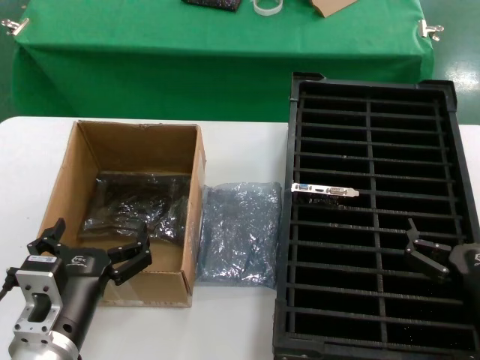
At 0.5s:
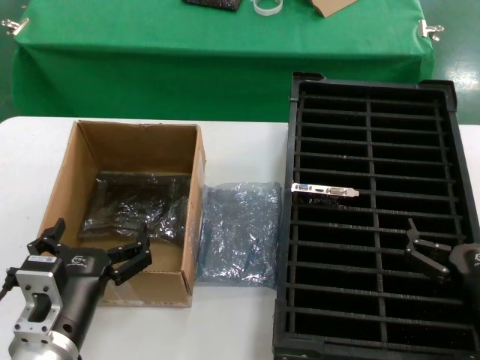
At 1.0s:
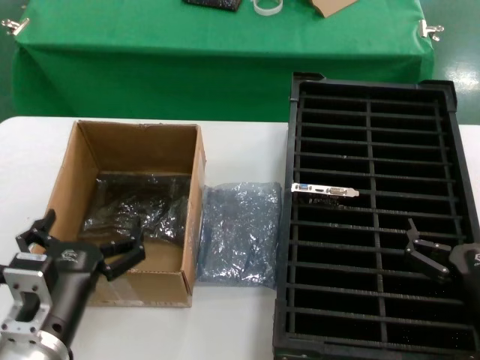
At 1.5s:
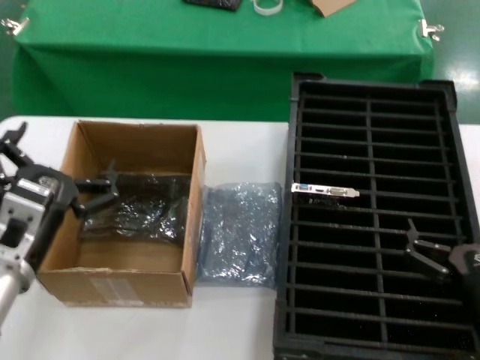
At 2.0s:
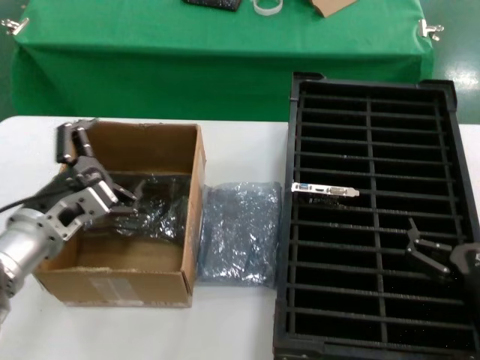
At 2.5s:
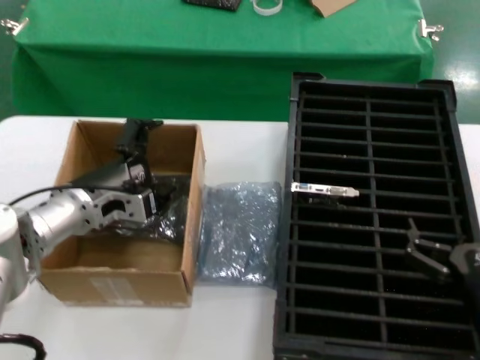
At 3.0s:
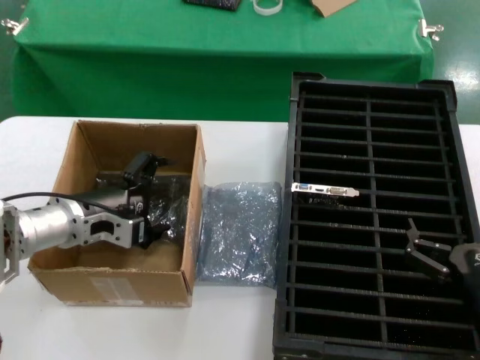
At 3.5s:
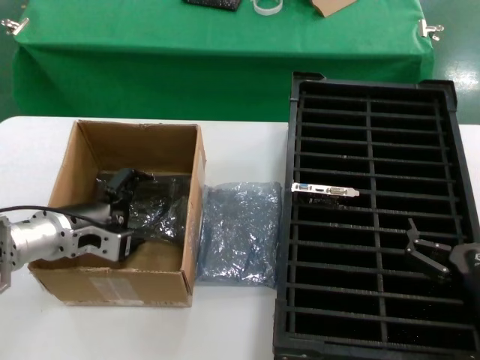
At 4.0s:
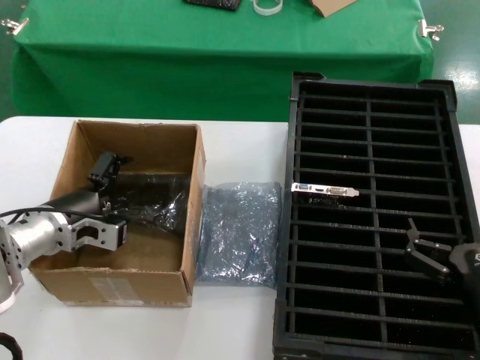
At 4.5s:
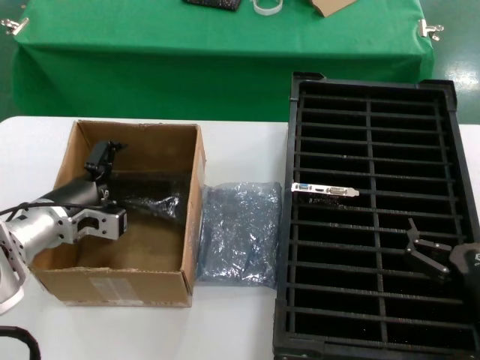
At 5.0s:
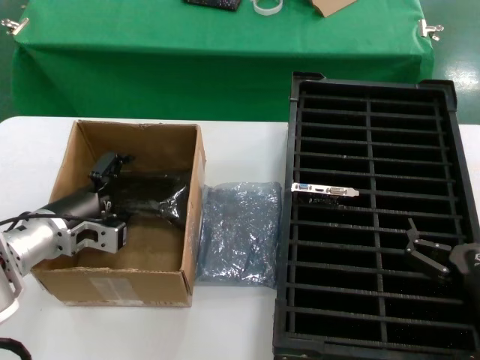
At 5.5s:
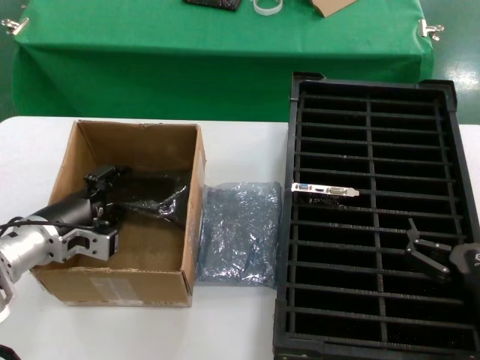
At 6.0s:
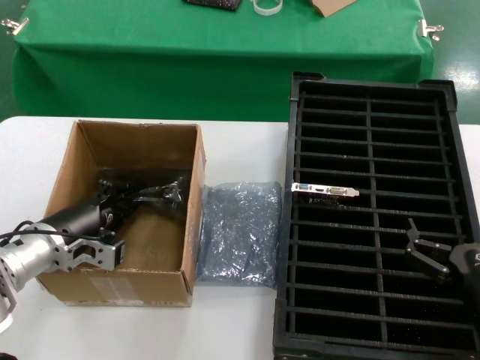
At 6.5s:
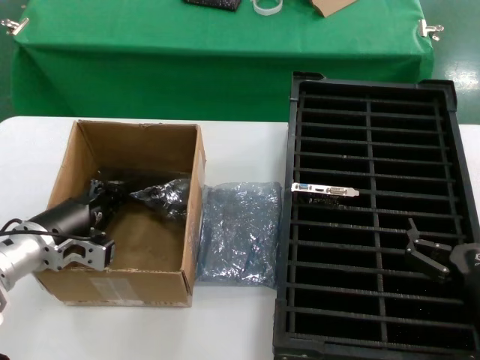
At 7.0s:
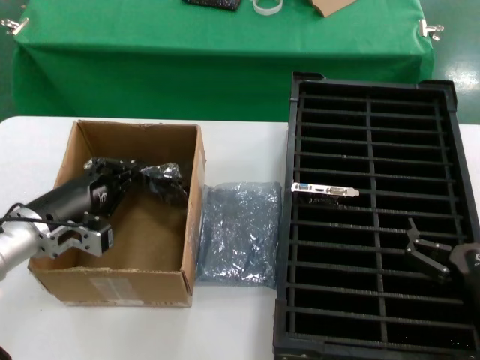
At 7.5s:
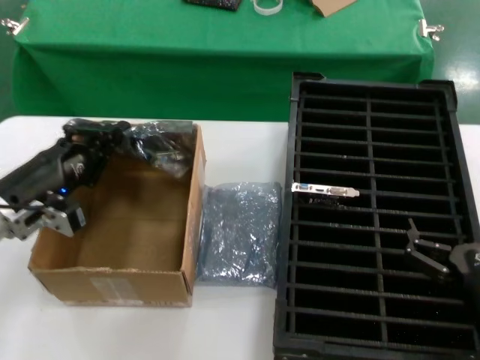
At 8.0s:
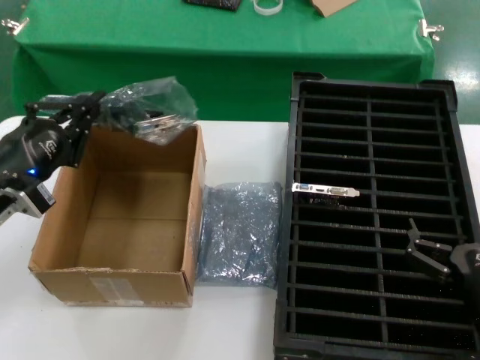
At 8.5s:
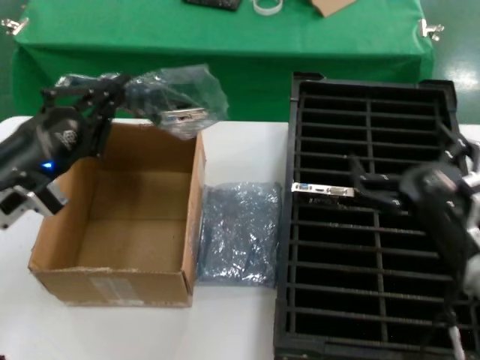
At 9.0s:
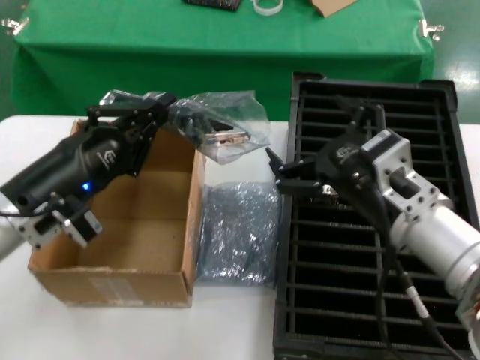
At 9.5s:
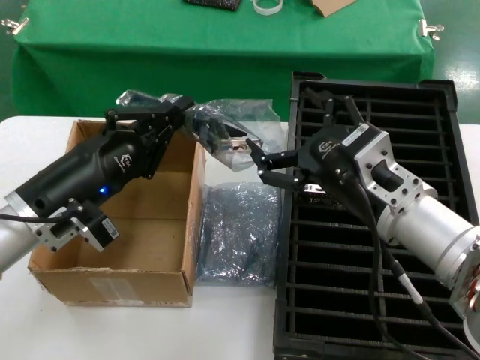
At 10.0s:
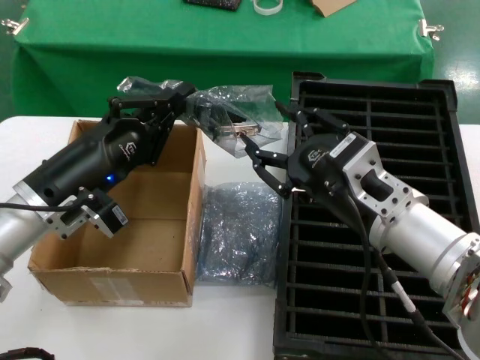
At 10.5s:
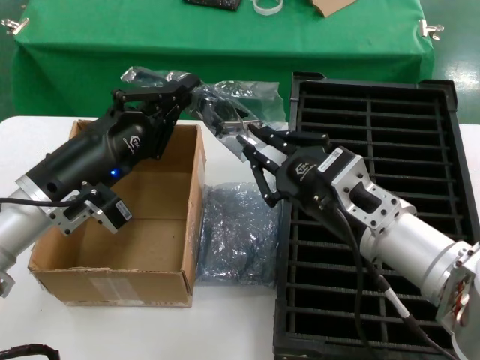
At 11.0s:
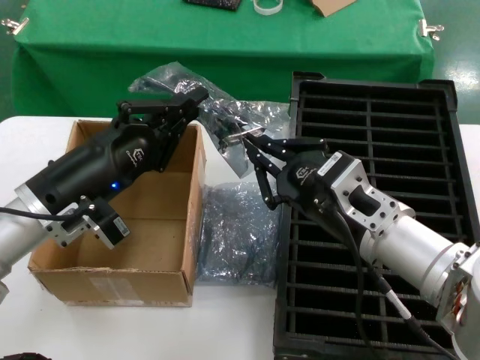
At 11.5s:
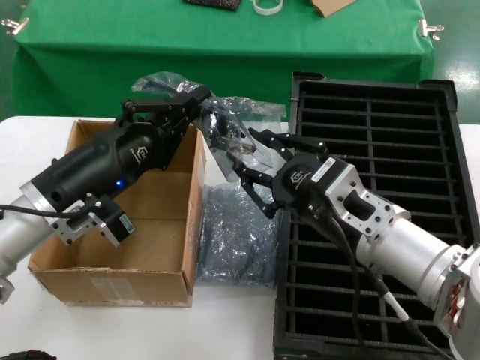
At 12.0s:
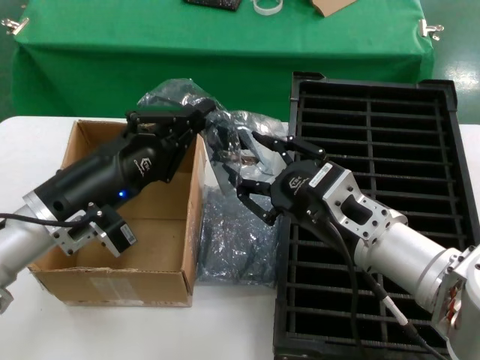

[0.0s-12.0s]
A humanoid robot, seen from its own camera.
Task of the whole recording: take out graphics card from box remove packaging put into black container.
Step, 0.0s to 6.0s: Grasp the bag.
Step, 6.5s to 8.0s: Lift the bag.
0.0s to 2.0s: The left hand moves forward, to the left and upward, about 15 cm.
2.0s to 4.0s: The left hand moves forward, some 5 cm.
4.0s to 6.0s: The hands stay close to where they were, moving slightly.
6.0s to 8.0s: The left hand travels upward by roughly 10 cm.
8.0s to 10.0s: The left hand is displaced to the right by approximately 10 cm, while the right hand is displaced upward, to the left and forward by approximately 20 cm.

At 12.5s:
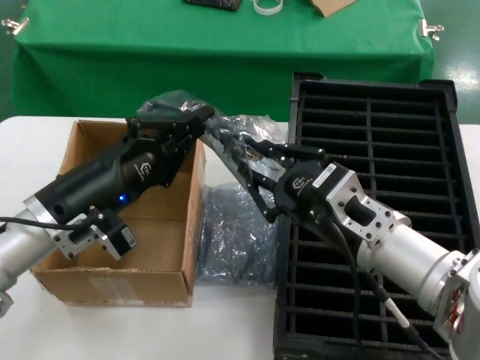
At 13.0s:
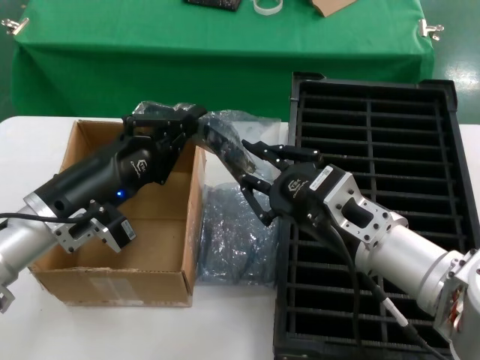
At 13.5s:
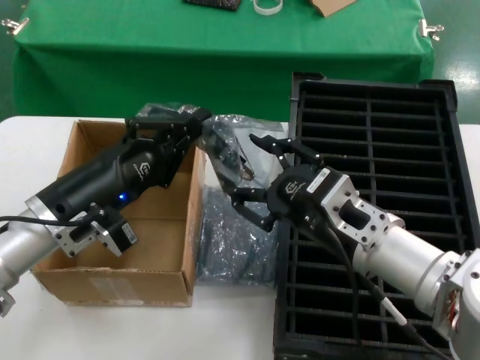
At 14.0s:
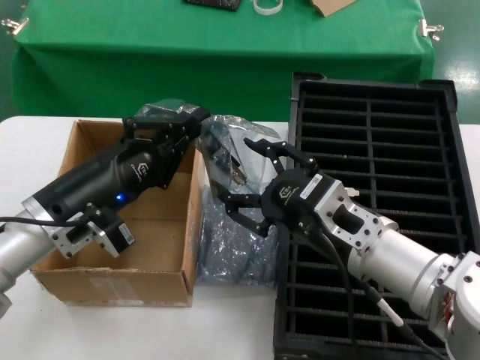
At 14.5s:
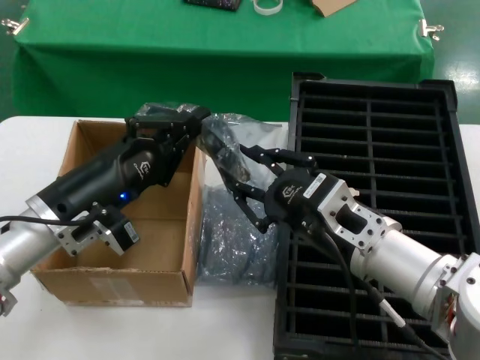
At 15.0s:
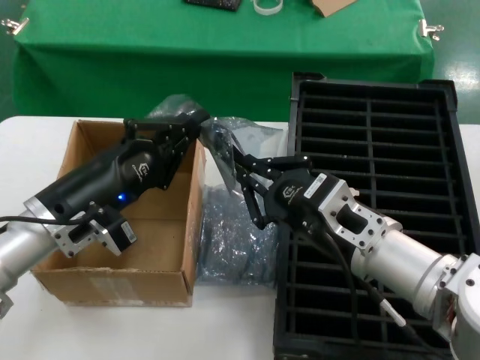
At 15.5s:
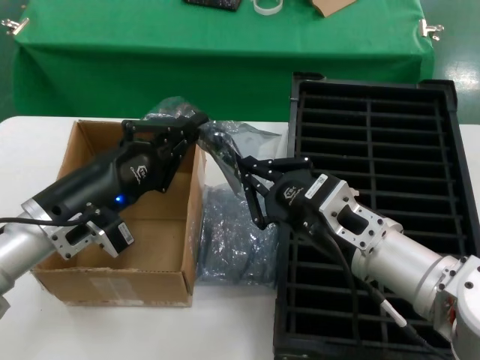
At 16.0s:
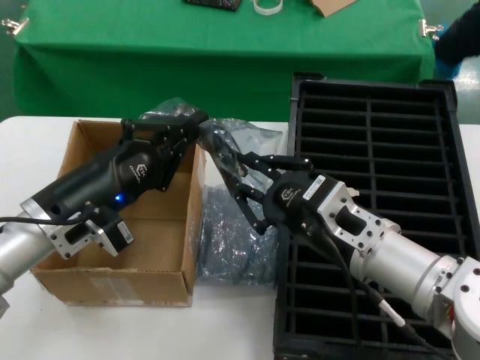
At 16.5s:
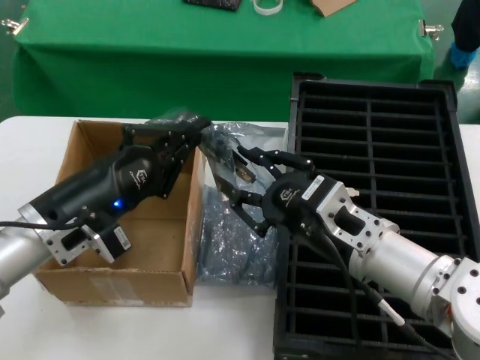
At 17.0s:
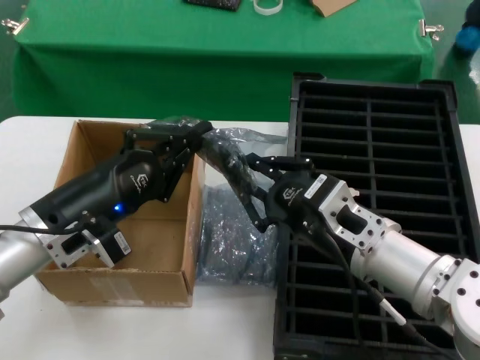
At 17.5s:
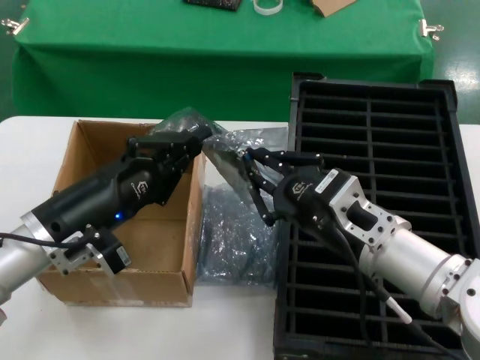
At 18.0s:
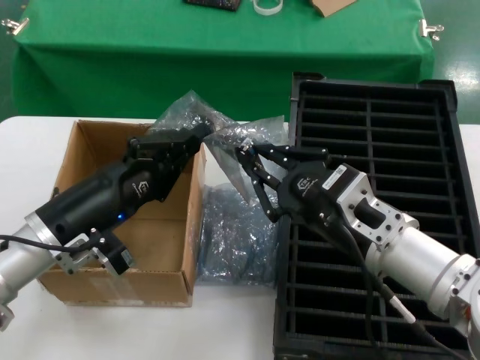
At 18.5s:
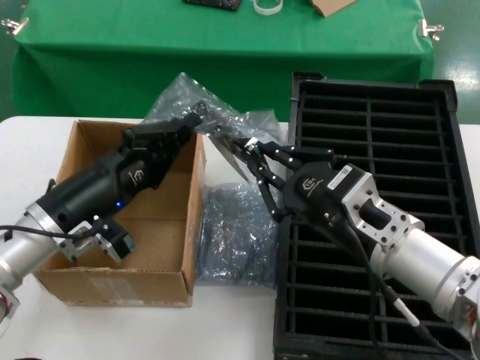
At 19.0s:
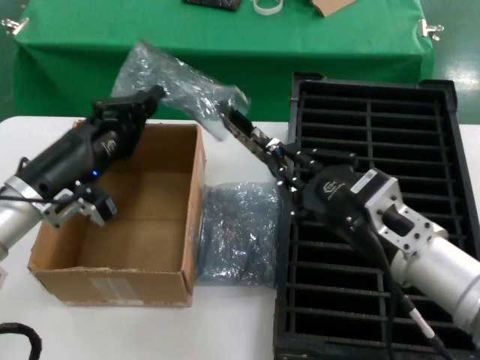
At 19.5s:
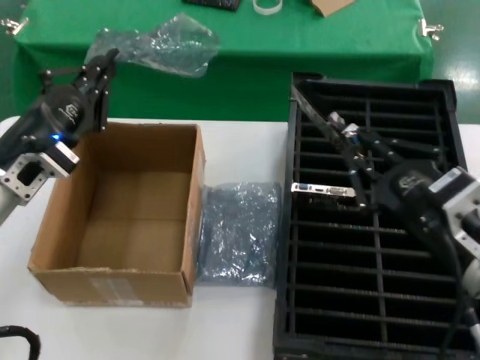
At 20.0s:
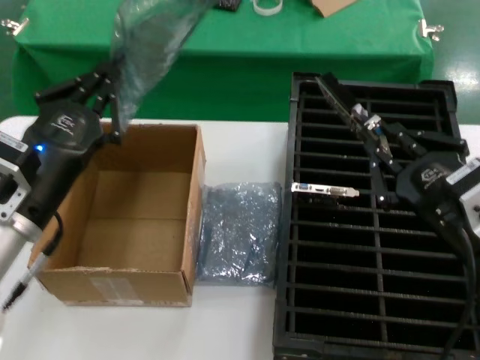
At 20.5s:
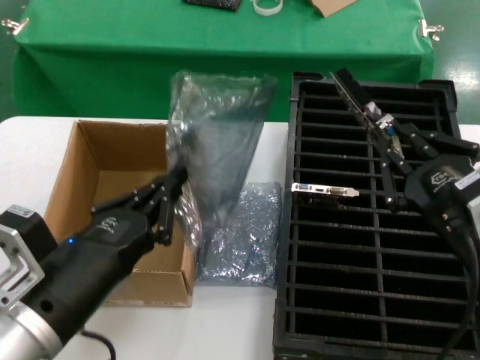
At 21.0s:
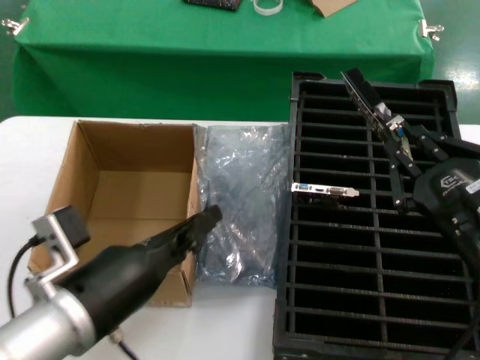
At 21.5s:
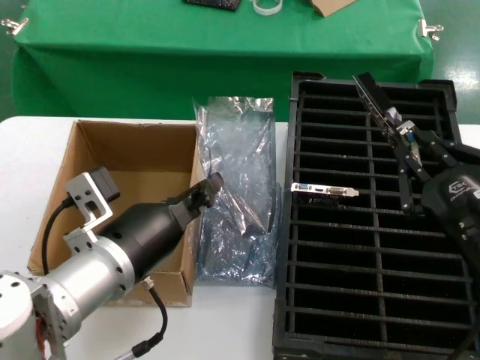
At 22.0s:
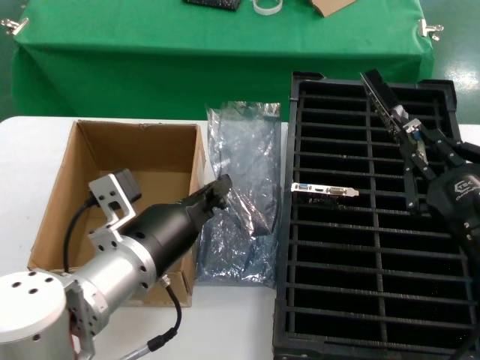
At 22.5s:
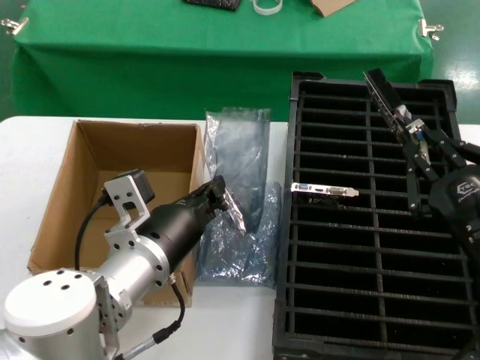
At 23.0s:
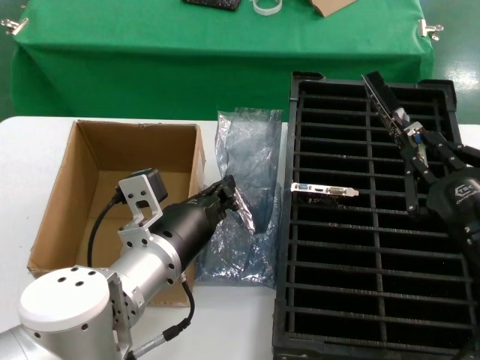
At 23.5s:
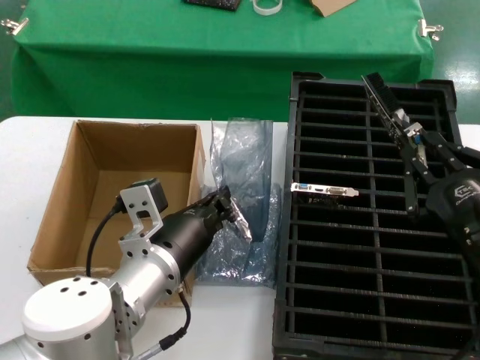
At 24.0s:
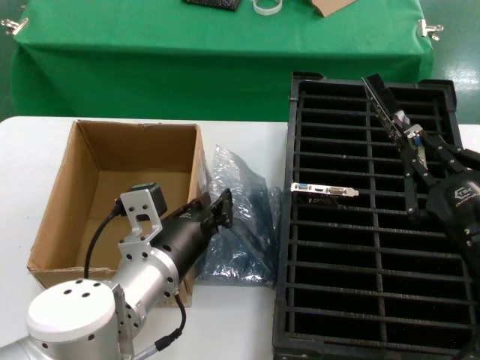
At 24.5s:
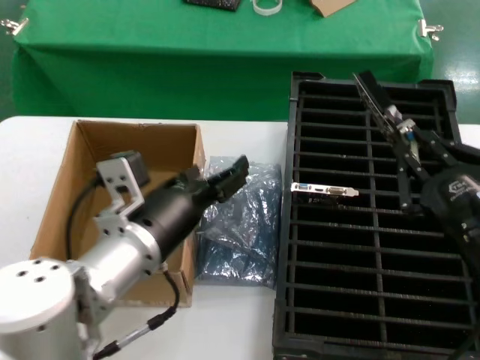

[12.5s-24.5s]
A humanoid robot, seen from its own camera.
Task of the whole recording: take out graphics card from box remove packaging put into black container.
Step, 12.5s to 19.0s: Take out the hard disk of the bag.
12.5s to 14.5s: Both hands stay about where they are.
14.5s to 16.5s: The hands move only a little.
16.5s to 18.5s: The left hand moves roughly 5 cm.
18.5s to 20.5s: The left hand travels backward and to the right by roughly 20 cm, while the right hand travels backward and to the right by roughly 10 cm.
20.5s to 22.5s: The left hand shifts roughly 15 cm forward and to the right.
22.5s to 24.5s: There are only small adjustments of the hands.

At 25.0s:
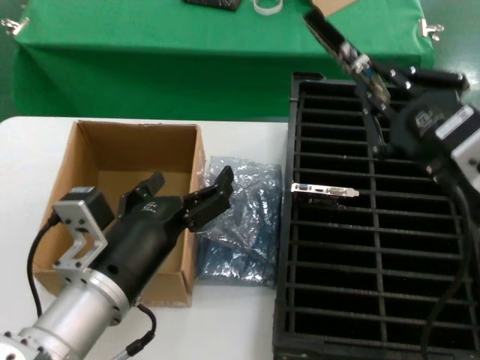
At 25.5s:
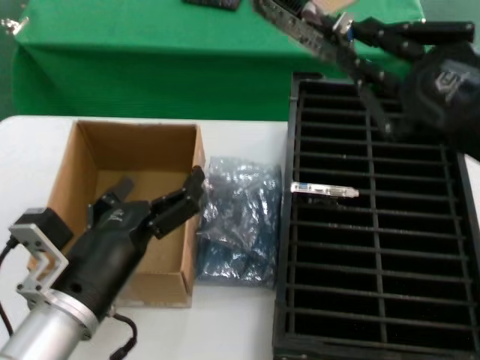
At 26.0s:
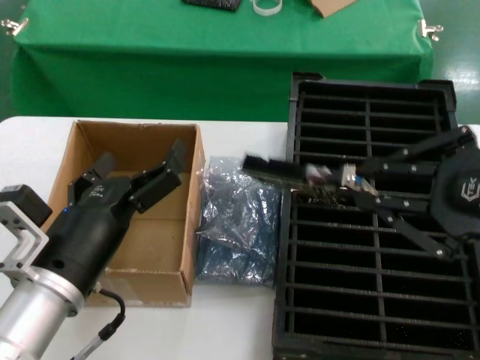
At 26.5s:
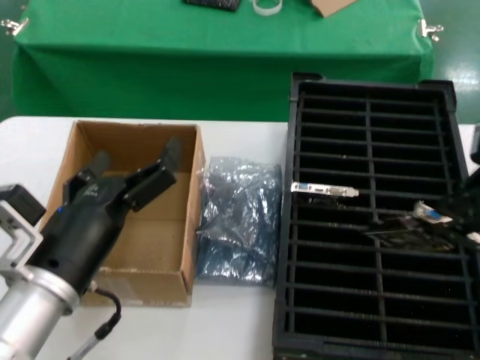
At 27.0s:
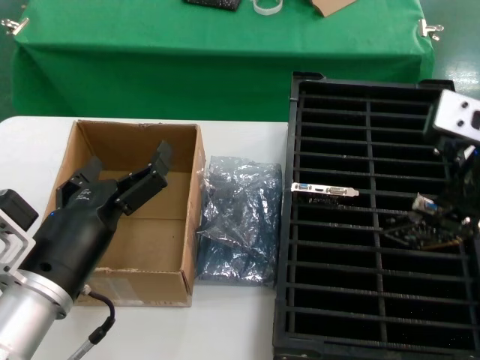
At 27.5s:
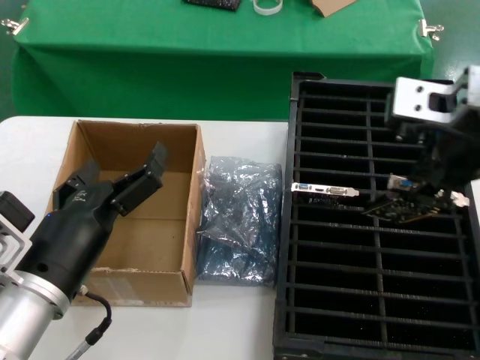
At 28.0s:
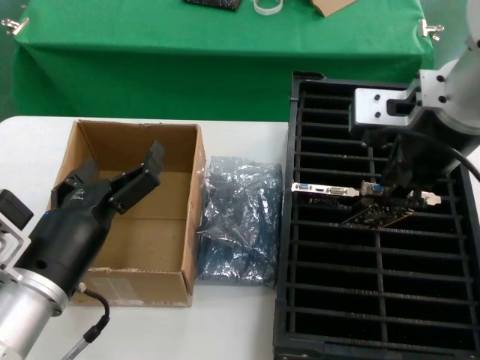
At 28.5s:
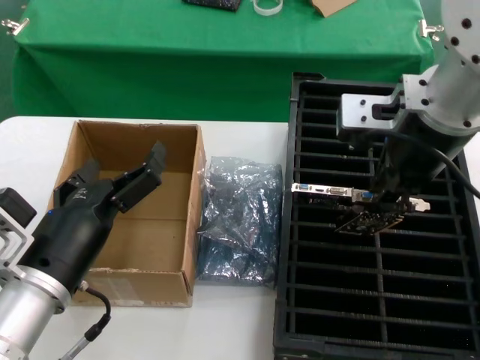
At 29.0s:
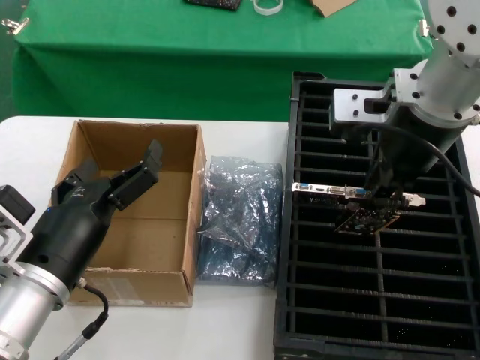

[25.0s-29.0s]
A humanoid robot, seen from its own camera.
Task of the whole recording: take out graphics card from box remove packaging put into black container.
25.0s to 27.0s: The left hand moves roughly 5 cm; the right hand moves upward and forward, about 15 cm.
27.0s to 29.0s: The right hand heads forward and to the left, covering approximately 10 cm.
